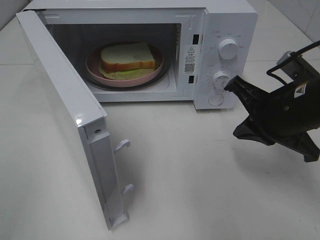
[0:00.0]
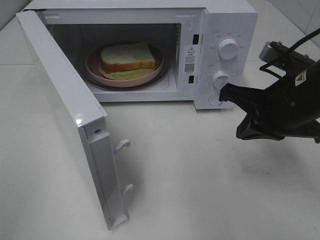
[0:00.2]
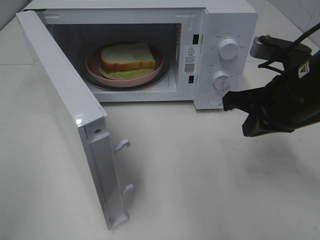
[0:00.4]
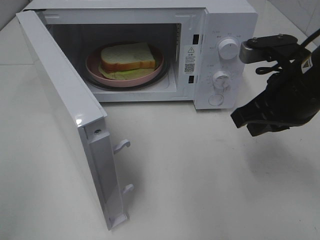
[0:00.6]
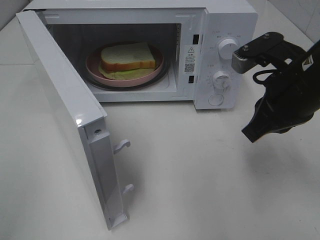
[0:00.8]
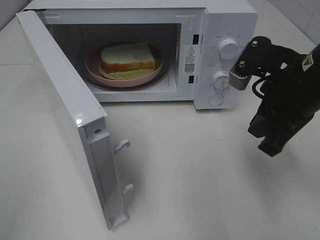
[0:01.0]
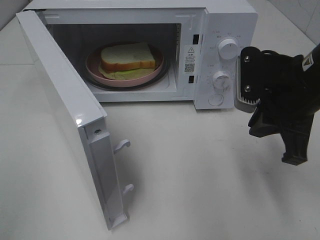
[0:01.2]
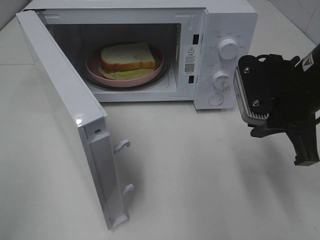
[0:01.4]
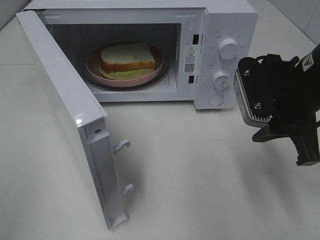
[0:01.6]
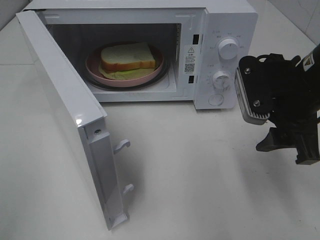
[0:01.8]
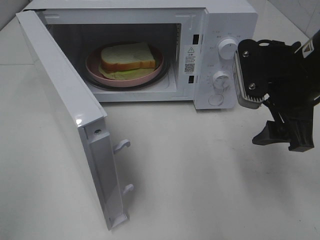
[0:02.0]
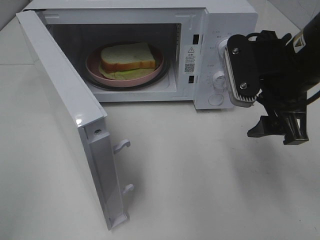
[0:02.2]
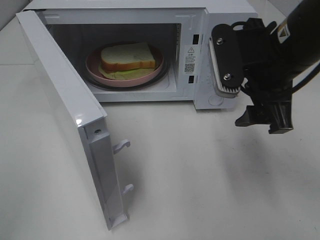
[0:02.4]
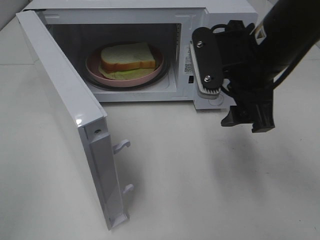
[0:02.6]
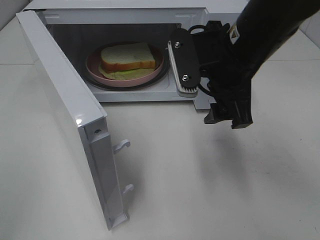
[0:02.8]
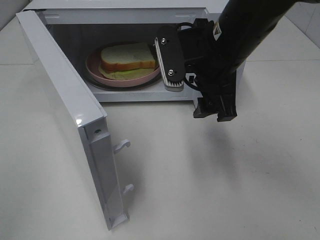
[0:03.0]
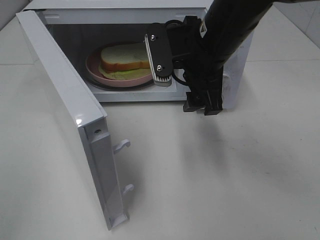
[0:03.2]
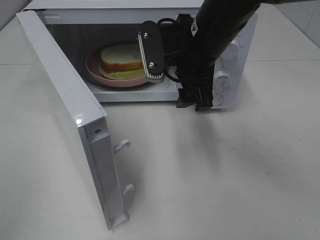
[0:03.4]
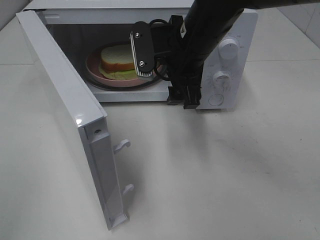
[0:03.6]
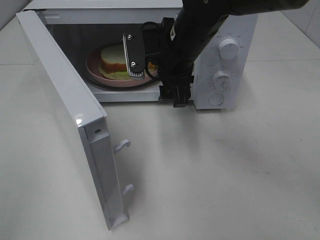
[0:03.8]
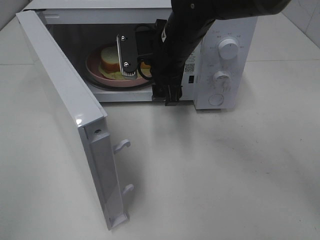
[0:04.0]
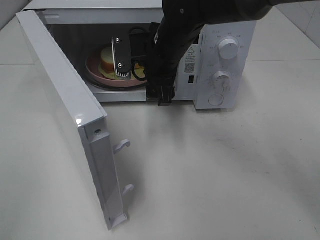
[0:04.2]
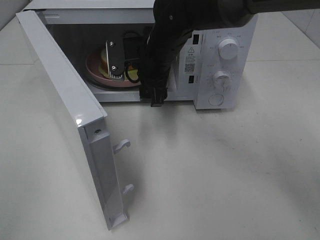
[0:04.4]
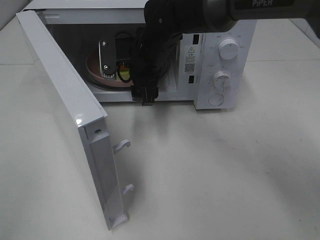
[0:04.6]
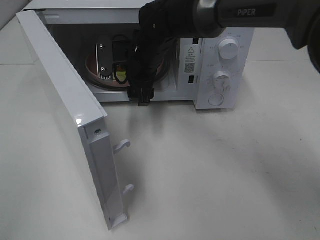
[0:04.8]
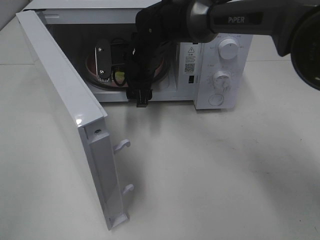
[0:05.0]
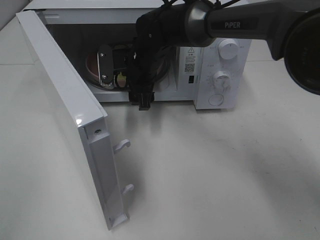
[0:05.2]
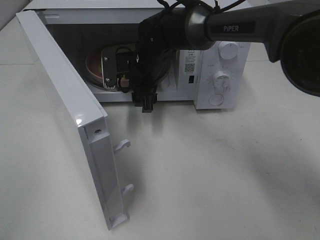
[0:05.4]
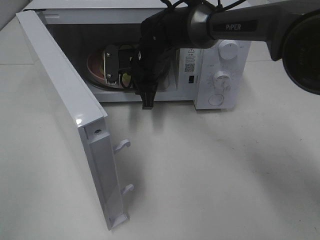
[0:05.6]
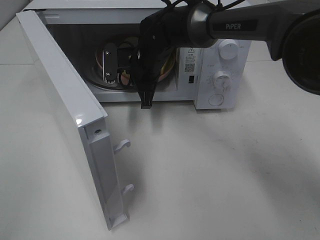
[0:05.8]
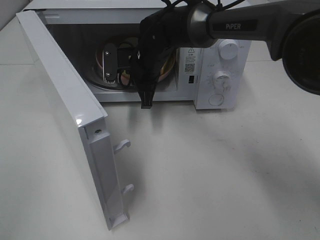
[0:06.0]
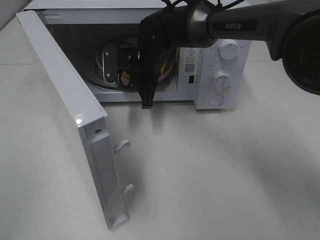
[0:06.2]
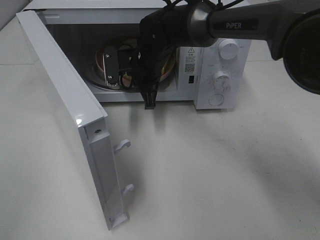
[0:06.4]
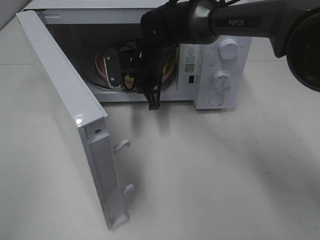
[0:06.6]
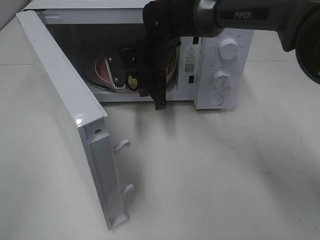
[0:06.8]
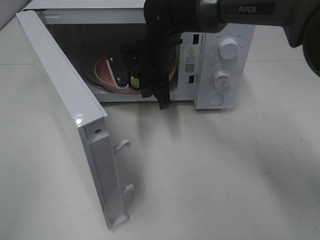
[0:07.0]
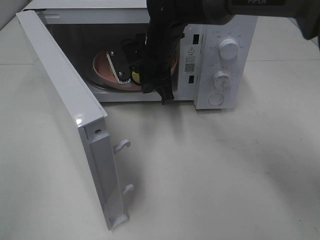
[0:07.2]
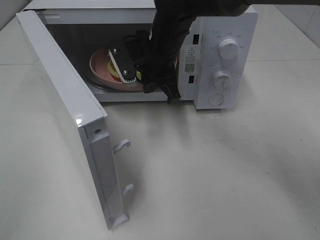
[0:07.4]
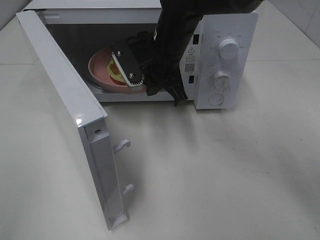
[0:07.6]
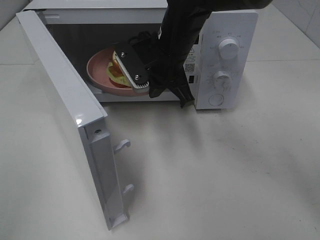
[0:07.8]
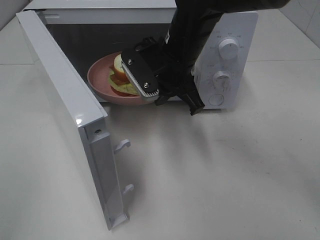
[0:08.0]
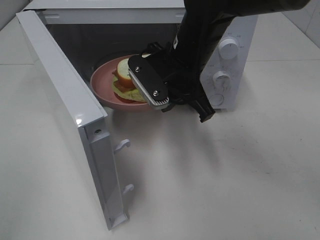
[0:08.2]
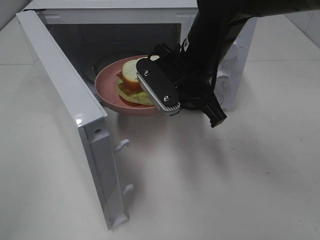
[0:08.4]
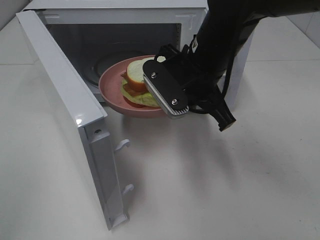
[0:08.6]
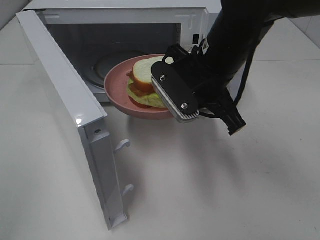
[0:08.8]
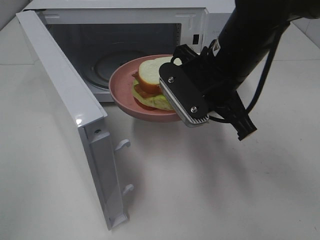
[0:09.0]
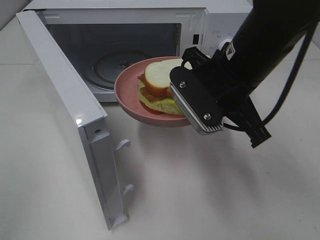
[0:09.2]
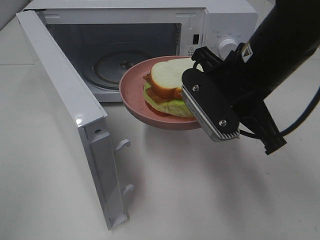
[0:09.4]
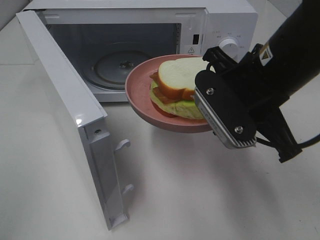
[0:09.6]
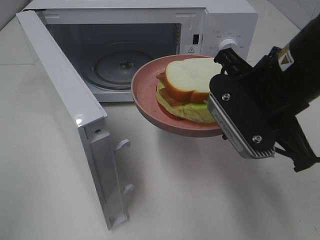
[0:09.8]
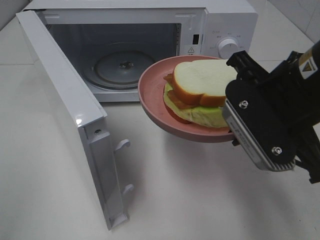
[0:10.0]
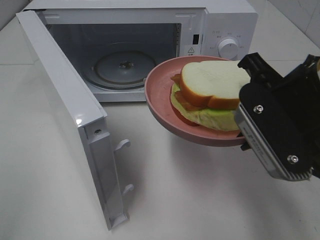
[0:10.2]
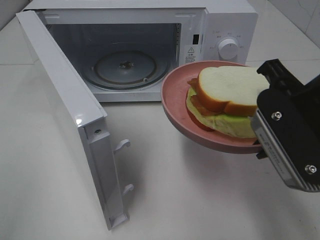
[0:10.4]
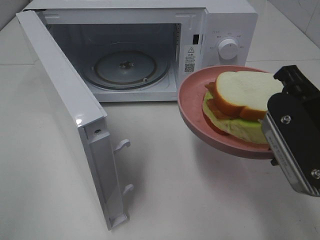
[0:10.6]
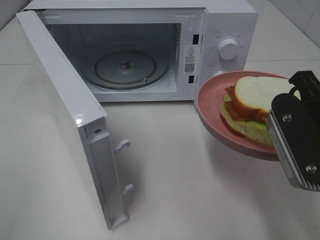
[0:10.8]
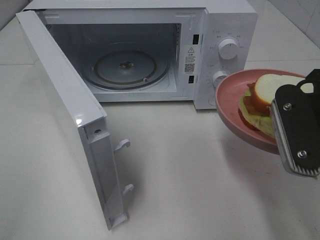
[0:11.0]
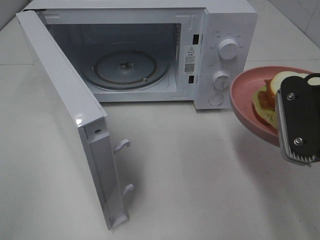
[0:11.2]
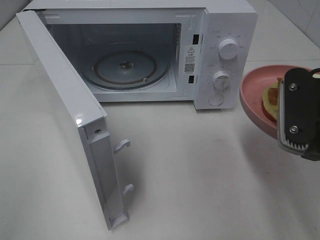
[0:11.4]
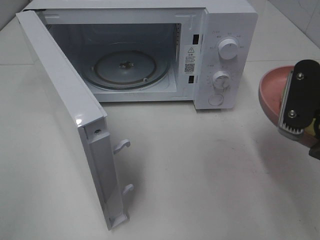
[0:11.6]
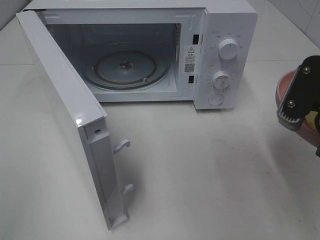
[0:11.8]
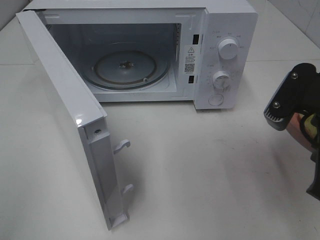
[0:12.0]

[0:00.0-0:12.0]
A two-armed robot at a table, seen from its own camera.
Task of the whole recording: Heat Sandwich.
Step, 0:00.0 to 0:05.8: Right hand: grab the plate with the sandwich.
0:00.0 to 0:01.6: The right gripper opens its fingers.
0:01.6 to 0:03.0: The right gripper travels to the left by roughly 10 cm, and opens up.
0:03.0 to 0:04.4: The right gripper is displaced forward, to the left and downward by some 15 cm.
0:04.4 to 0:06.0: The right gripper ends up approximately 5 cm from where it was, and closes its fingers.
0:06.0 to 0:07.6: The right gripper shifts about 10 cm upward and backward.
0:07.6 to 0:09.0: The right gripper heads backward and to the right, covering roughly 15 cm.
0:09.0 to 0:10.4: The right gripper is displaced backward and to the right by roughly 15 cm.

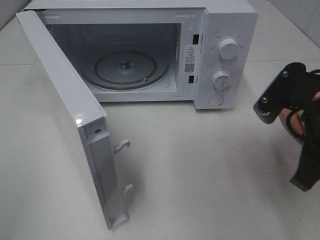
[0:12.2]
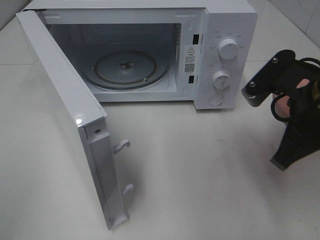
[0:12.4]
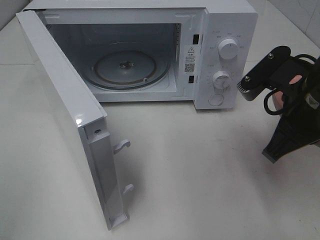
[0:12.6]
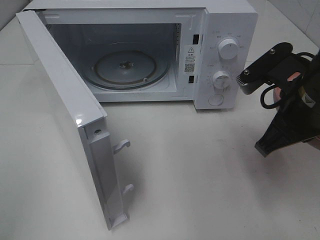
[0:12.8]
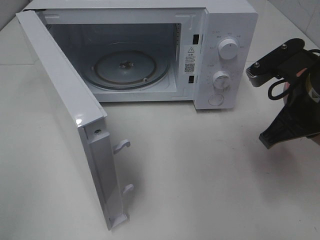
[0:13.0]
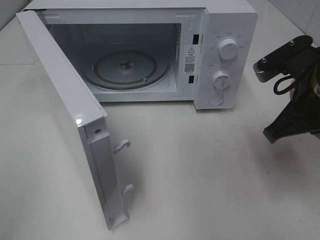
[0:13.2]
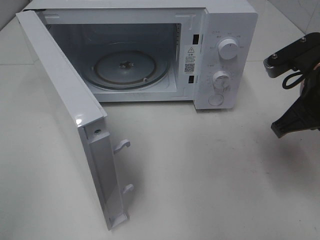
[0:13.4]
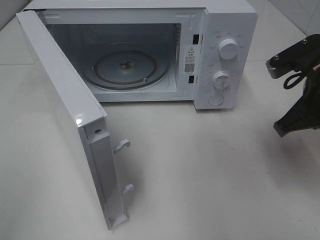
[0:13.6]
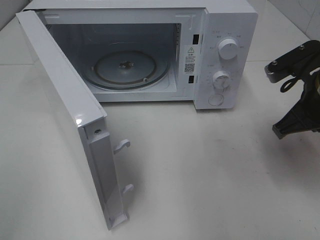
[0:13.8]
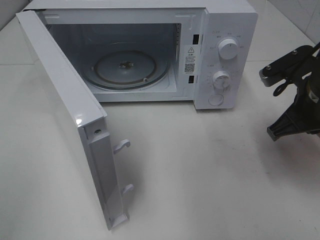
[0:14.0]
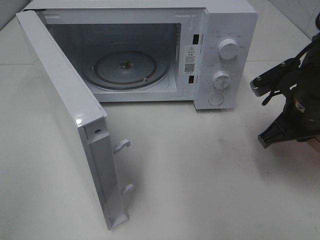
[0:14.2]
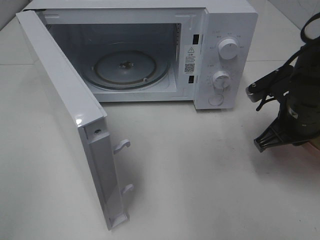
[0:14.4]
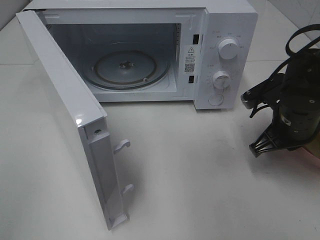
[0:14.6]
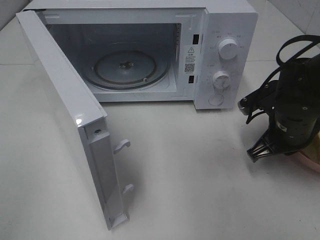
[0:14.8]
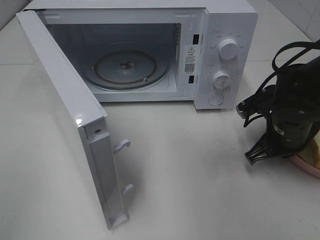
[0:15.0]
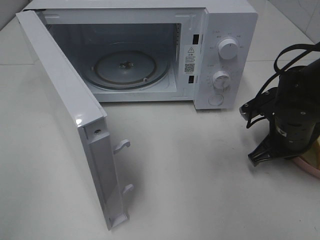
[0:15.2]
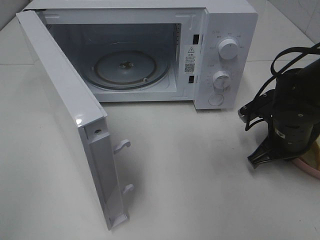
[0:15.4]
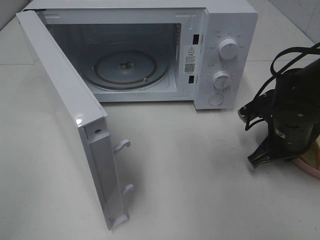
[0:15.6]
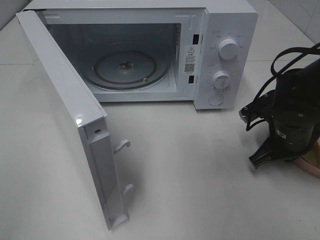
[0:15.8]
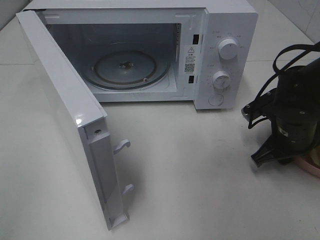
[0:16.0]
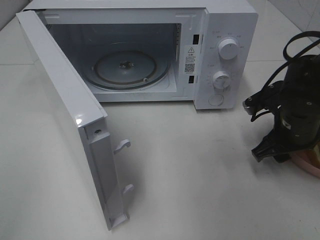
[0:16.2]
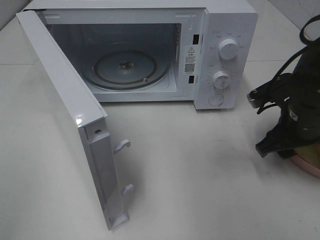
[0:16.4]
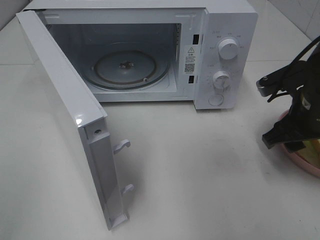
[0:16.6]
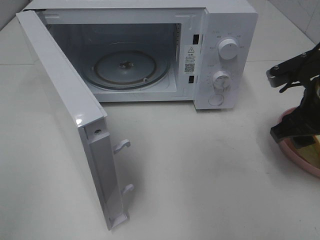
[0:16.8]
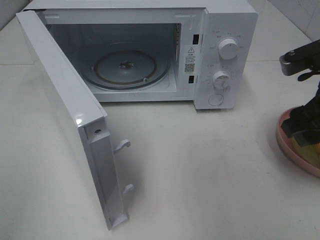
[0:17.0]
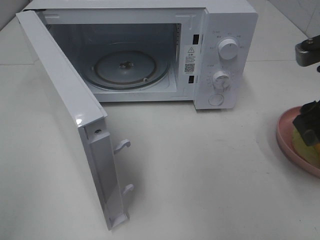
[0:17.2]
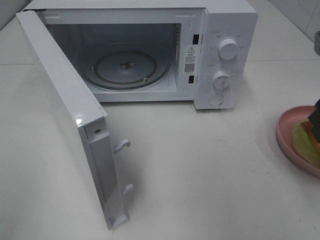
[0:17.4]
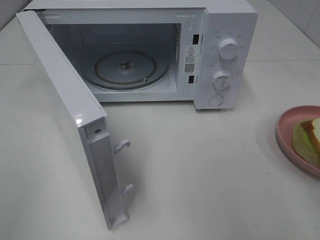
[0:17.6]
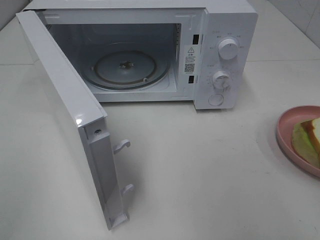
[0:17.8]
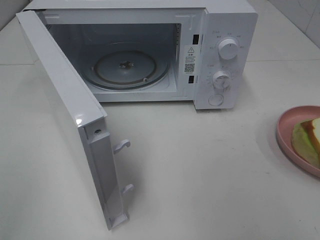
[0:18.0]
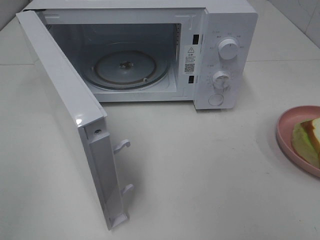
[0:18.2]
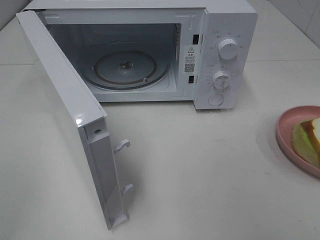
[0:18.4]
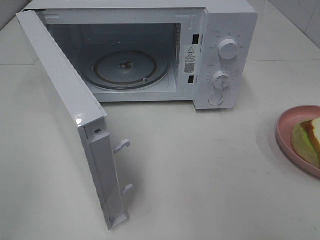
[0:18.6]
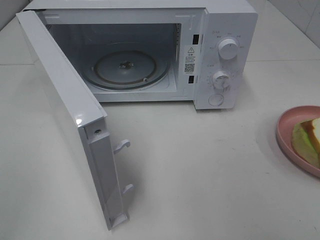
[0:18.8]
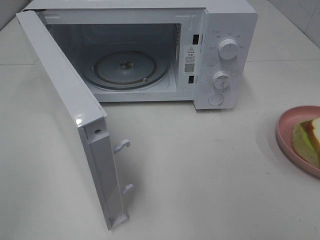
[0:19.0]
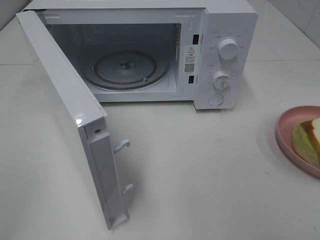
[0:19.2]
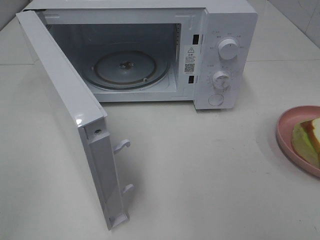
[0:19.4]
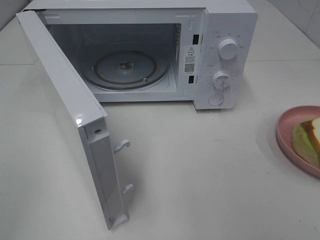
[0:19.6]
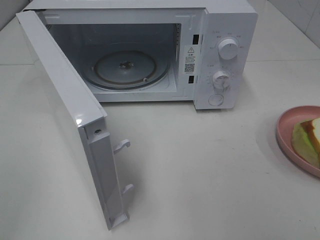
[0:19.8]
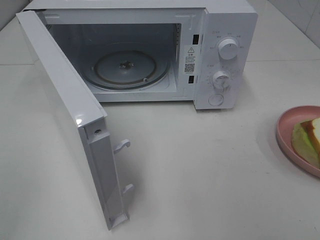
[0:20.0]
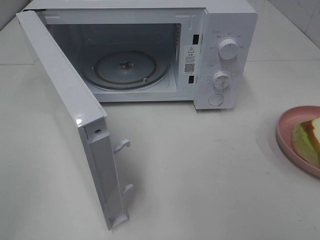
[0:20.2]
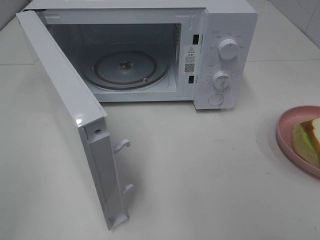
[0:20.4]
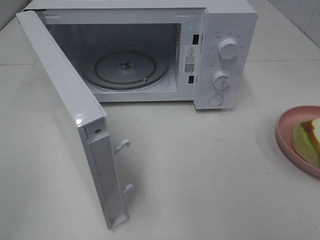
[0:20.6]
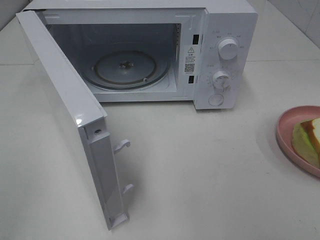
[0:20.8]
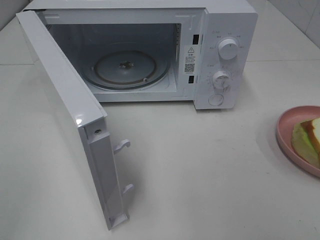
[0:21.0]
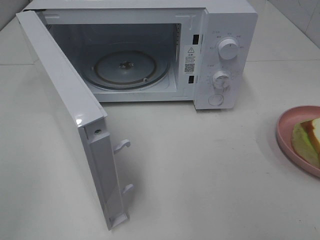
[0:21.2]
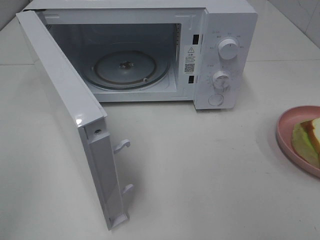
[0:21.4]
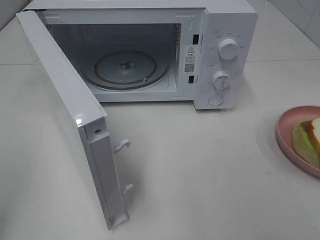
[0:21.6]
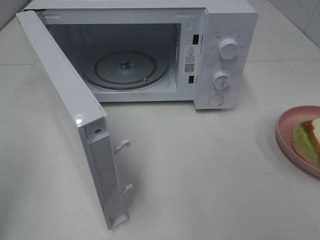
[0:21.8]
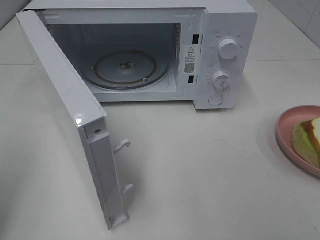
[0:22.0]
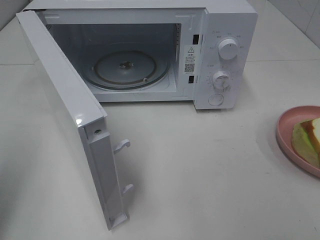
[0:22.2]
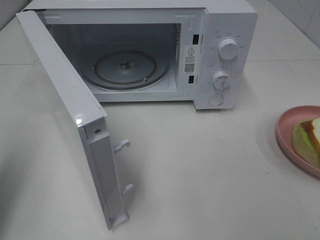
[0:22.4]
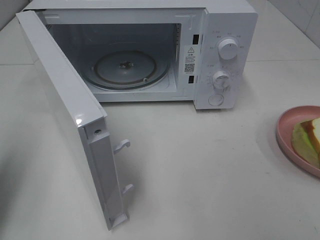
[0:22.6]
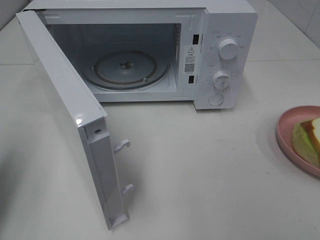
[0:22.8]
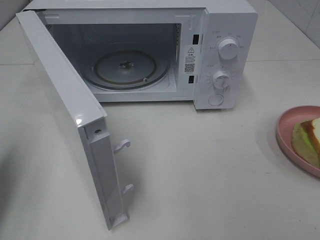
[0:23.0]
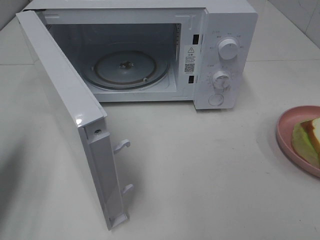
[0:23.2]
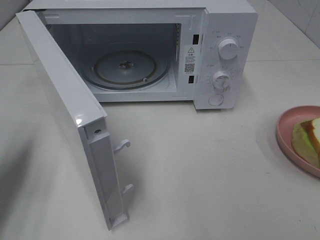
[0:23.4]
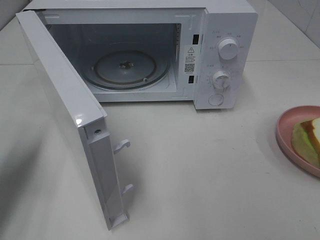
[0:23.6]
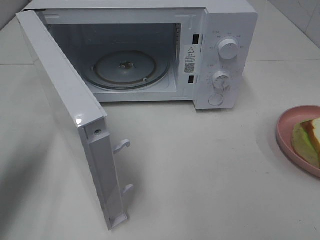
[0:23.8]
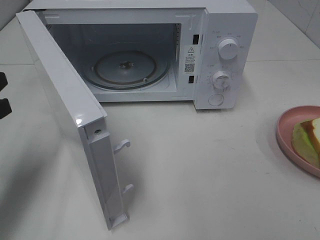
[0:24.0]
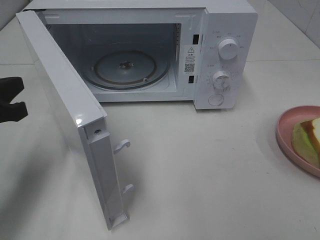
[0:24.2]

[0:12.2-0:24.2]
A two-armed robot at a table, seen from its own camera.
Task of the whole recording: Heat Sandwich.
Step, 0:12.2 to 0:16.6: Right hand: place the plate on the table.
0:12.2 to 0:13.8: The right gripper moves forward, roughly 5 cm.
0:13.8 to 0:15.2: The right gripper is displaced downward by approximately 10 cm.
0:15.2 to 0:16.6: The right gripper goes approximately 5 cm upward, and opens up.
0:16.6 to 0:18.2: The right gripper travels backward and upward by roughly 25 cm.
0:19.8 to 0:21.2: The two grippers keep their place.
0:21.2 to 0:22.6: The left gripper travels forward by roughly 15 cm, and closes.
0:22.6 to 0:24.2: The left gripper shifts about 10 cm downward, to the right and forward.
